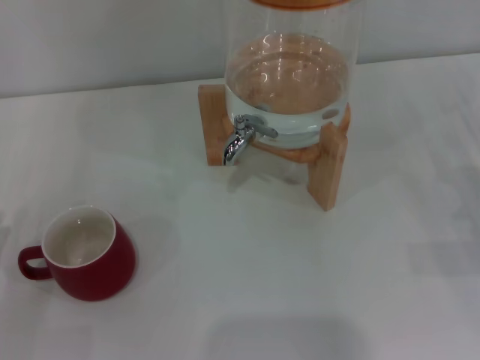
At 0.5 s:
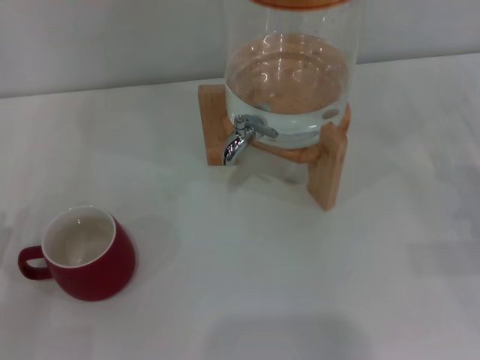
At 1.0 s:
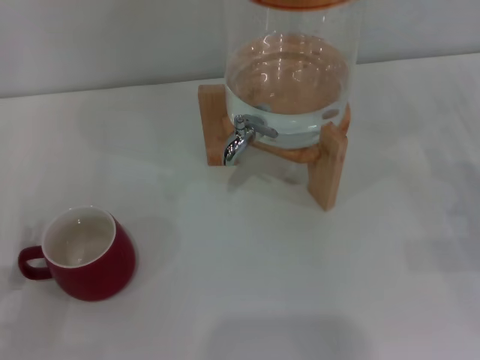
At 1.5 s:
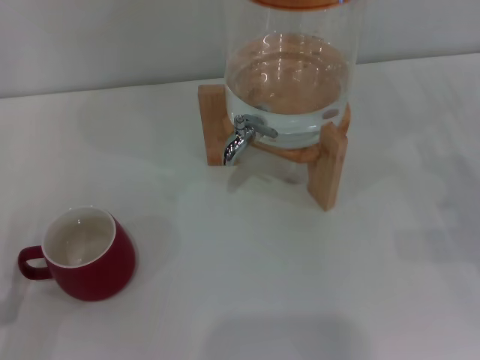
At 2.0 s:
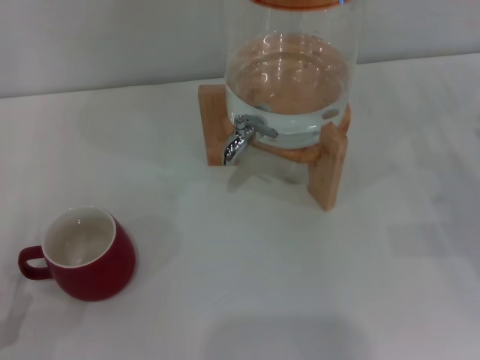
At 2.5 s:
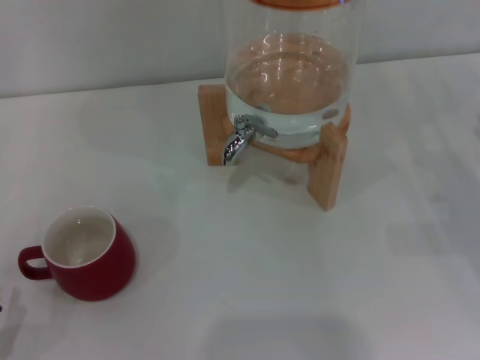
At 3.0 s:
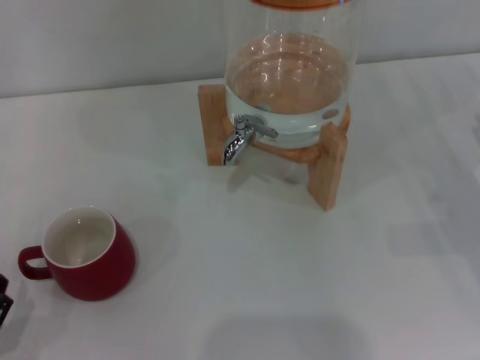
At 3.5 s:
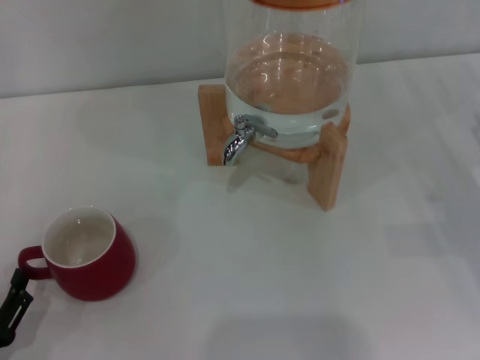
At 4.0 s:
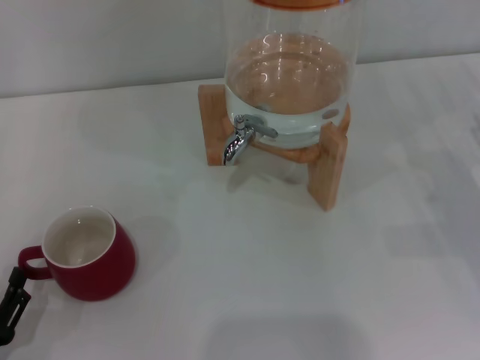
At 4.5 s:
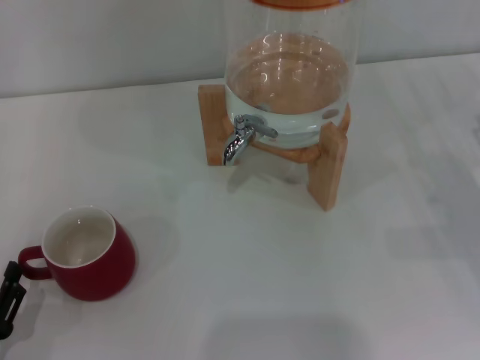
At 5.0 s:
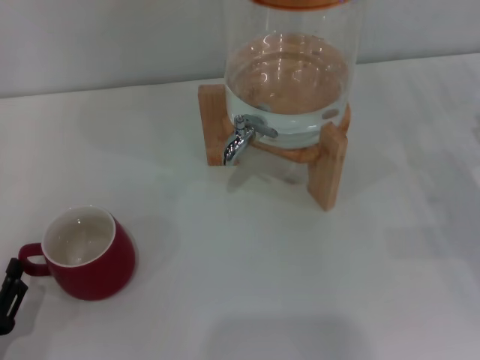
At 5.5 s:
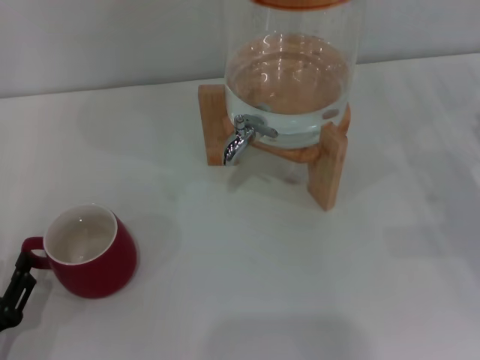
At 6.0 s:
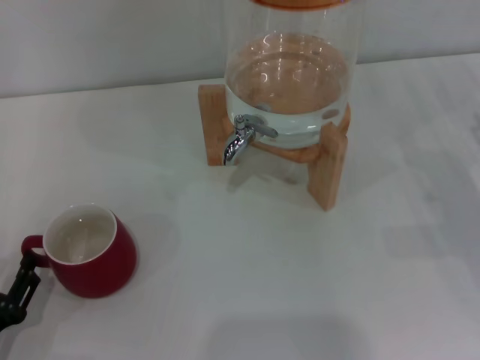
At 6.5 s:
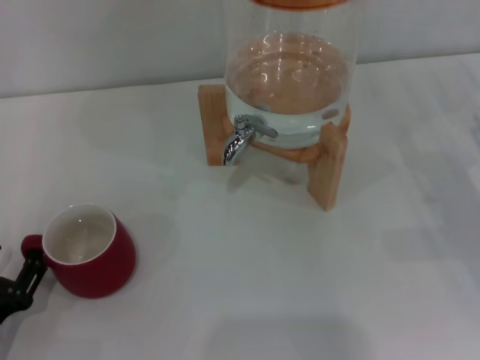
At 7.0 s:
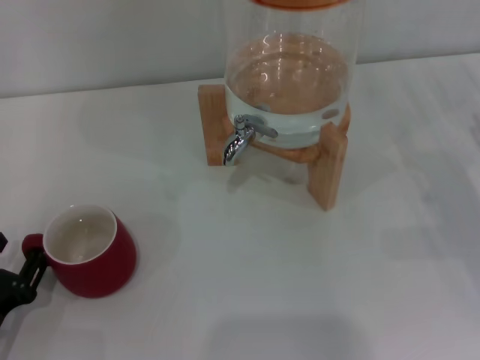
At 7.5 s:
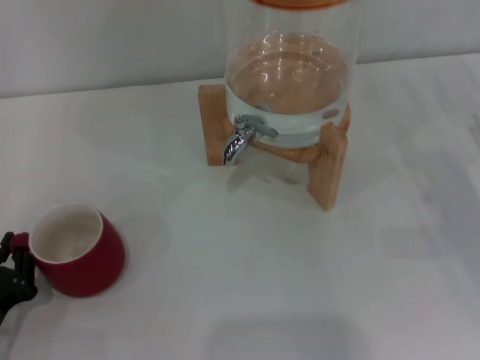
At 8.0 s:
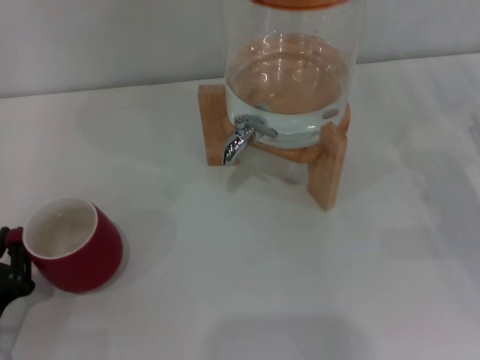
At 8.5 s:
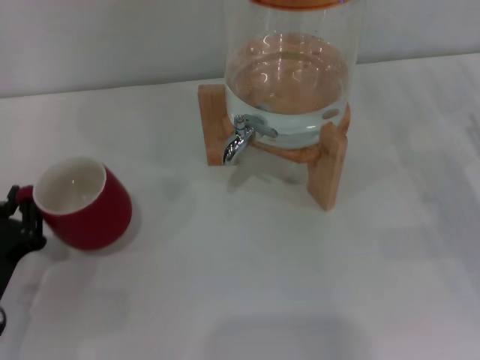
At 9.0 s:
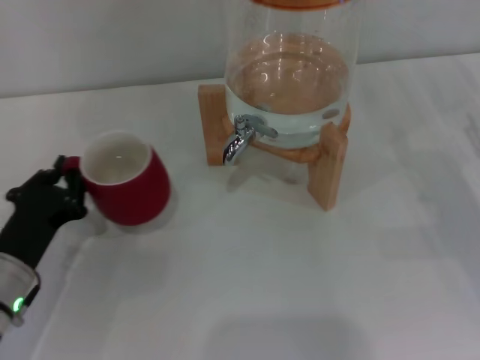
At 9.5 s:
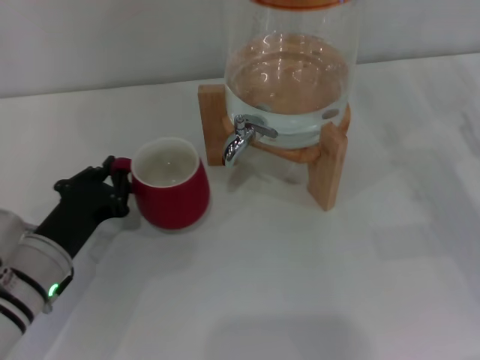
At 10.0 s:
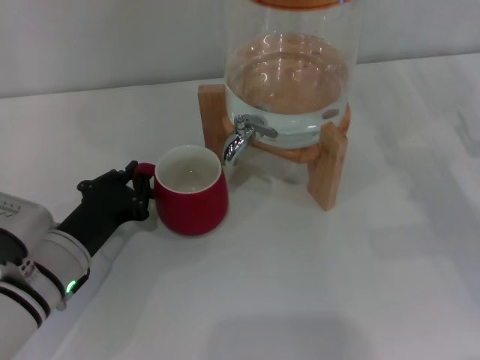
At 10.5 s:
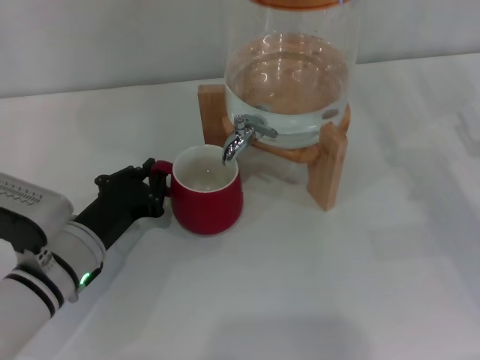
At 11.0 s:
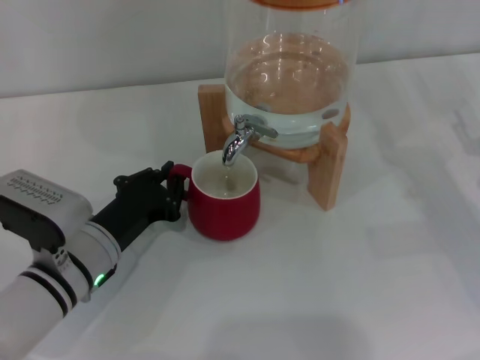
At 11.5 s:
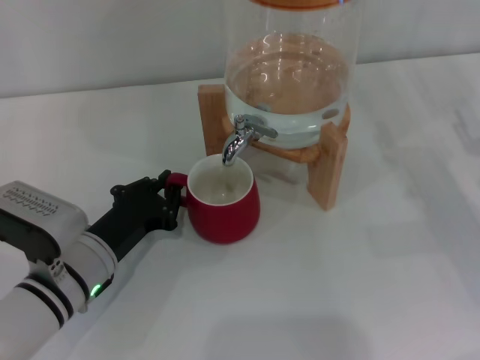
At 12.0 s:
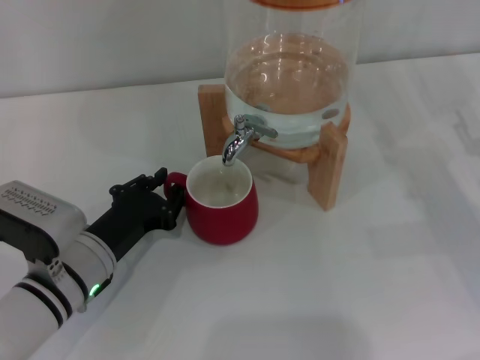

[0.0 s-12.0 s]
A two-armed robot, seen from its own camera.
Task of the whole recording: the left gripper pick up the red cup and place it horizontally under the faucet, the right gripper turn on the faucet to fill the cup, and then turn off the faucet.
2.0 to 6.0 s: There are only small adjustments of the grippers.
6.0 to 8.0 s: The left gripper closes its fingers.
8.0 to 10.0 s: The left gripper heads forward and to the right, covering some 15 cm.
10.0 to 12.0 s: The grippers stay close to where they were, moving slightly.

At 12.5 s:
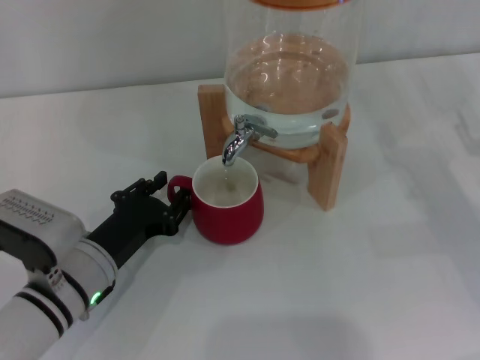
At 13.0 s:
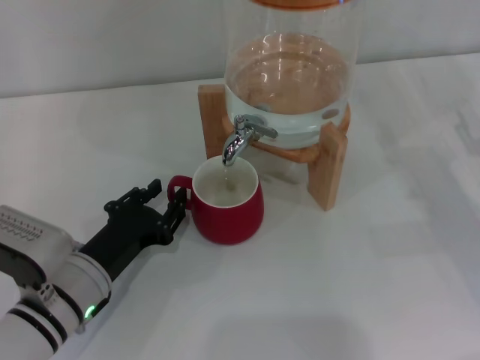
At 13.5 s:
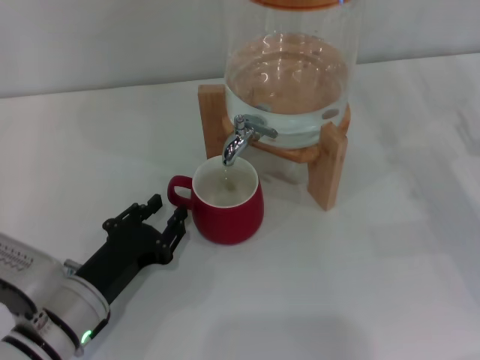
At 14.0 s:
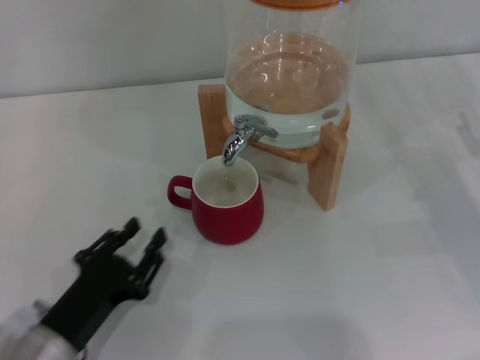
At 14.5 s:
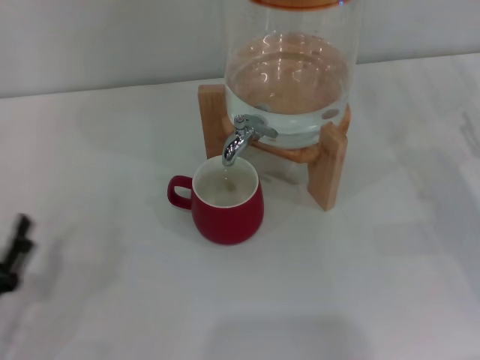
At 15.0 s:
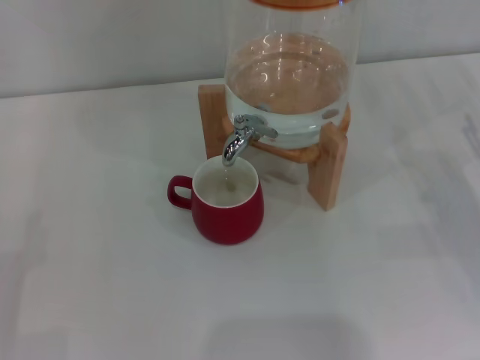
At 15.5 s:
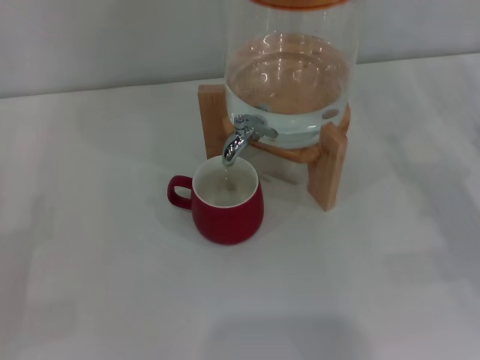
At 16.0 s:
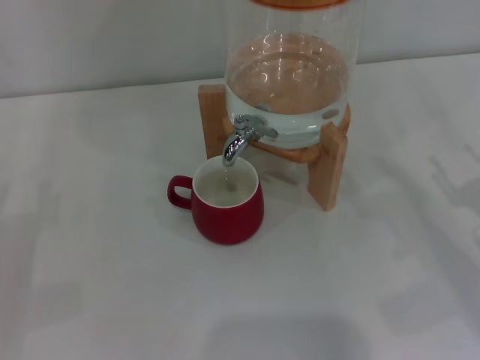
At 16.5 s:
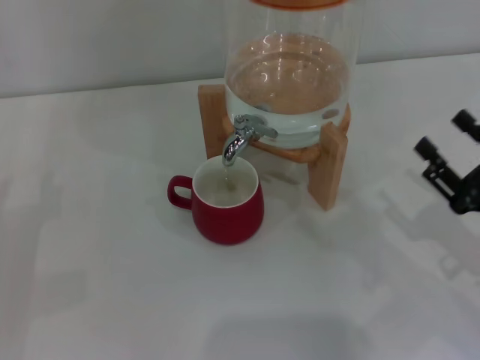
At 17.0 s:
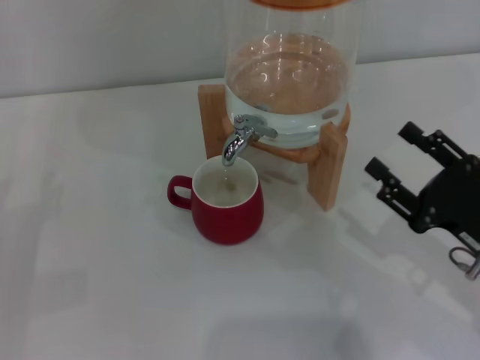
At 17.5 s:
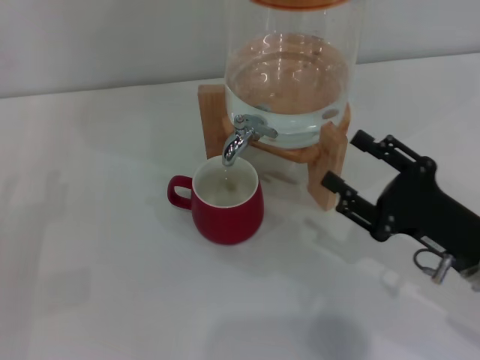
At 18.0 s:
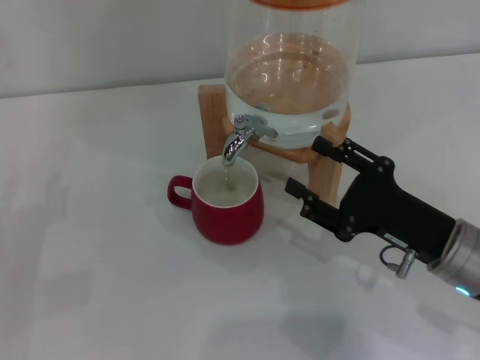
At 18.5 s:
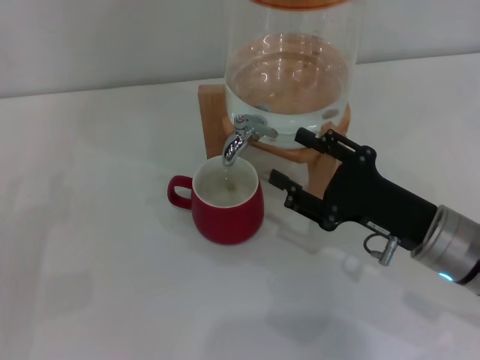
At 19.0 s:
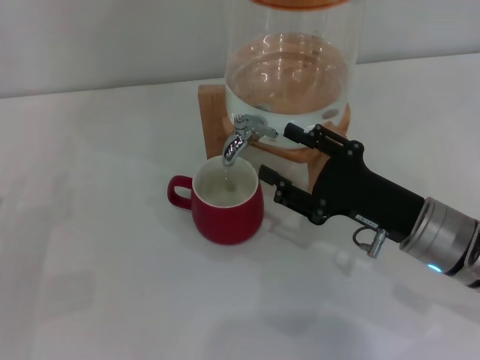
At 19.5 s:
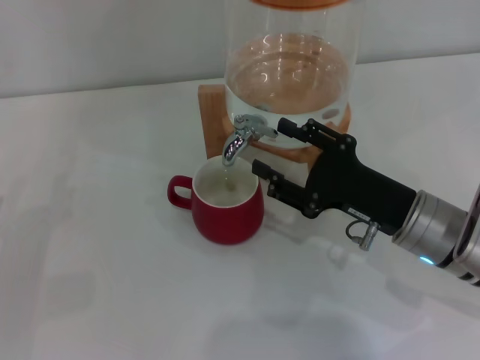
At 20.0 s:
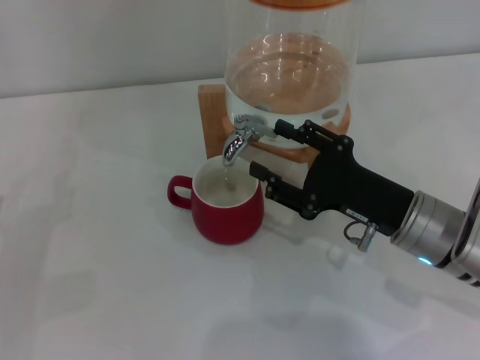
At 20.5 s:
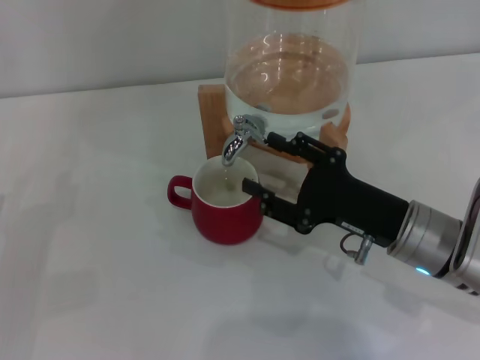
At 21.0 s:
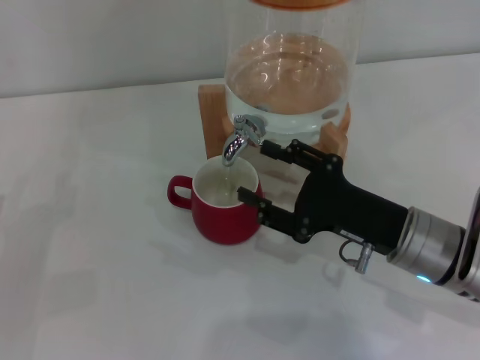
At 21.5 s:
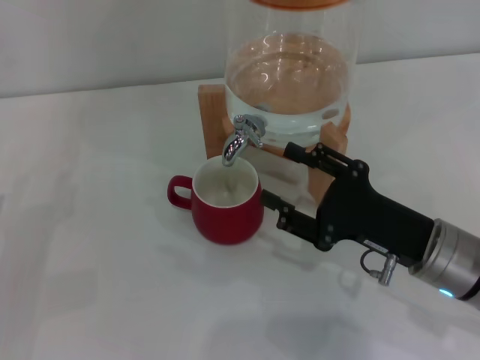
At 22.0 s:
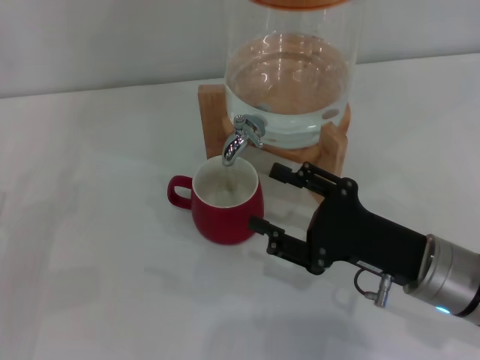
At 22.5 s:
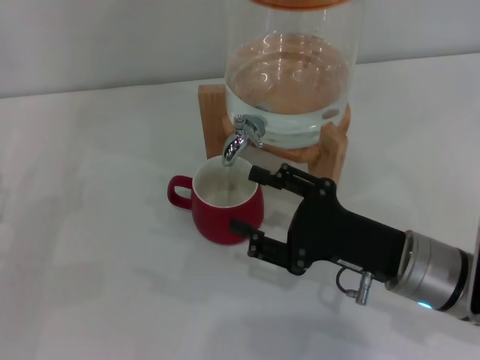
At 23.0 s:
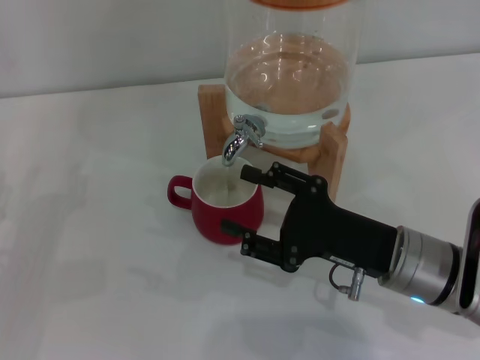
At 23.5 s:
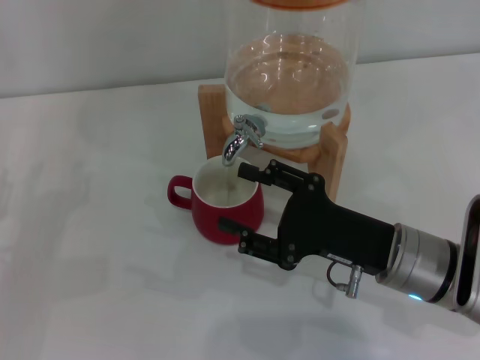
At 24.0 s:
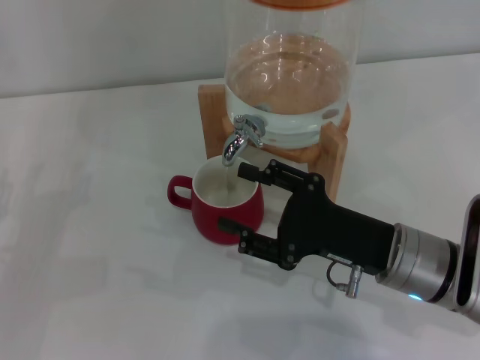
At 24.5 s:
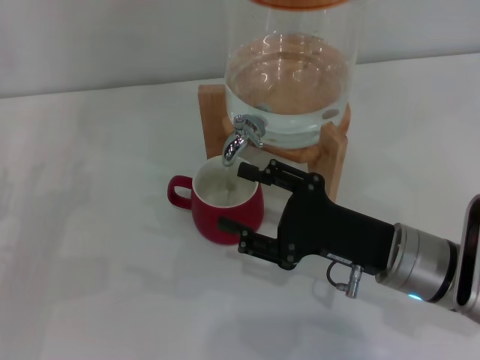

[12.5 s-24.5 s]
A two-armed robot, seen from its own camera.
Task of the whole recording: the left gripper pick up the red cup and place it horizontally under the faucet, the right gripper turn on the faucet to fill the cup, and then turn off the faucet.
Step, 14.0 to 23.5 s: Open the dispenser valve and fill the cup with water with the right gripper.
12.5 to 14.5 s: The left gripper is displaced to the left and backward by some 15 cm.
14.5 to 16.5 s: The left gripper shifts approximately 10 cm forward and to the left. The right gripper goes about 10 cm backward and to the left.
16.5 to 18.5 s: The right gripper moves to the left and forward, approximately 10 cm.
18.5 to 22.5 s: The grippers stay close to where they were, moving slightly.
22.5 to 24.5 s: Both grippers stay put.

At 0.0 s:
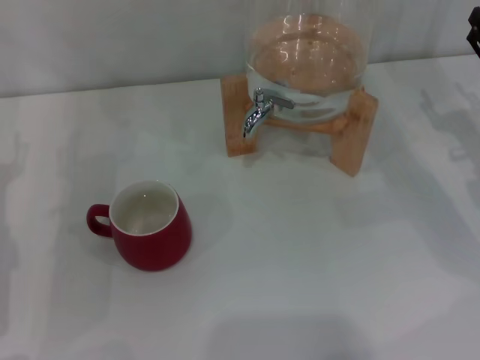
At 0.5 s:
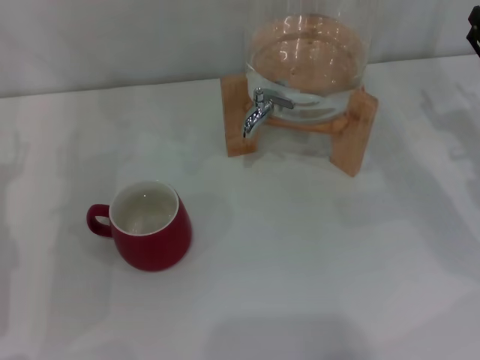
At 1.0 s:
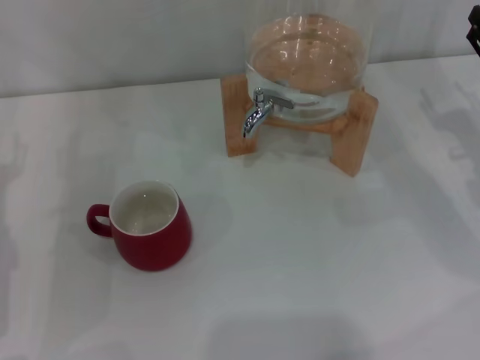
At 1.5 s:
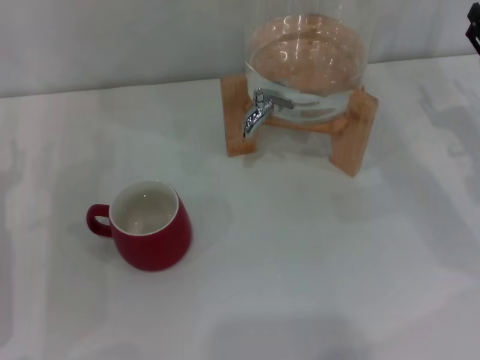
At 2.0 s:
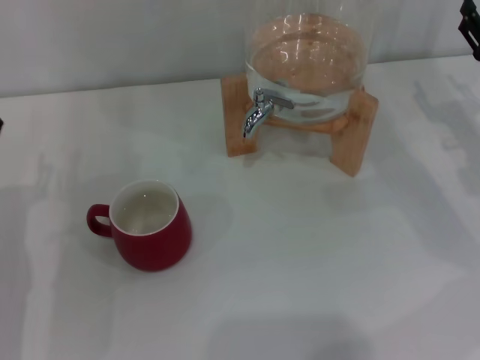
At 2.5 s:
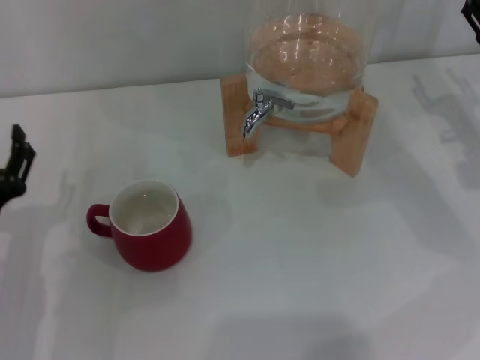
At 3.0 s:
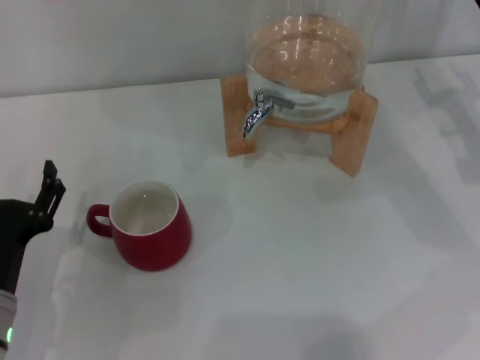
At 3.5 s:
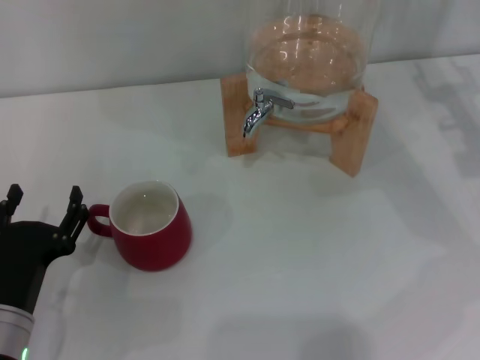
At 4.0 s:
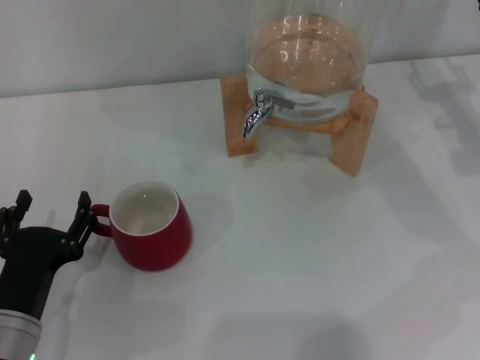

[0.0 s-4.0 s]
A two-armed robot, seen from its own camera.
Task of the whole recording: the left gripper pick up the red cup and place it horizontally under the faucet, the right gripper turn on the faucet to fill the cup, and then turn off the faucet.
2.0 to 4.0 s: The left gripper shifts approximately 10 cm backward.
